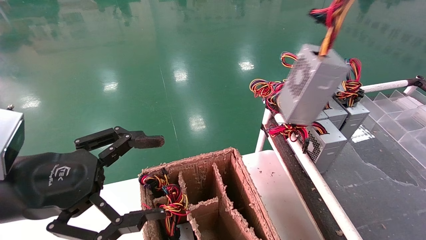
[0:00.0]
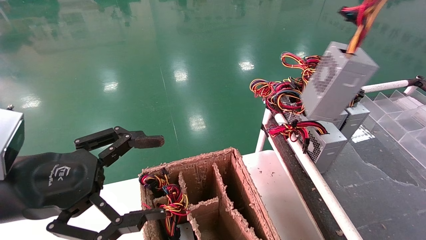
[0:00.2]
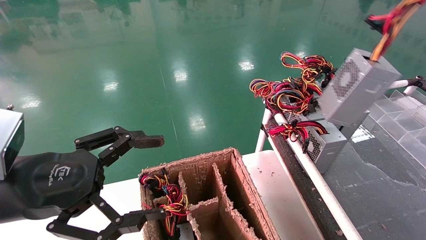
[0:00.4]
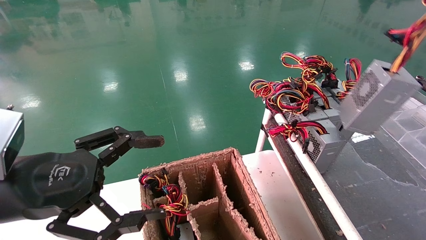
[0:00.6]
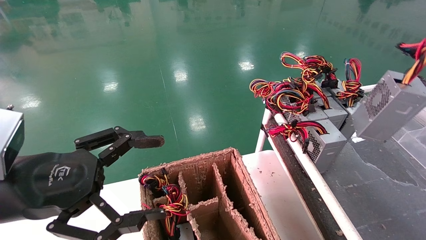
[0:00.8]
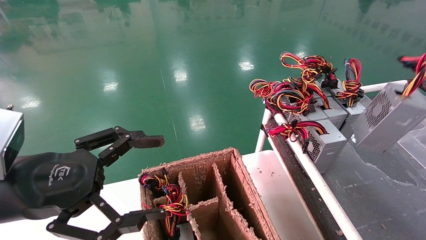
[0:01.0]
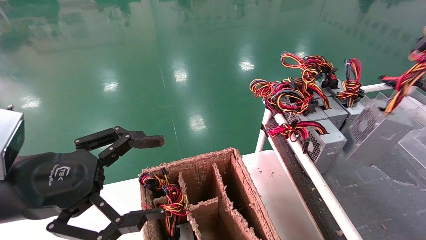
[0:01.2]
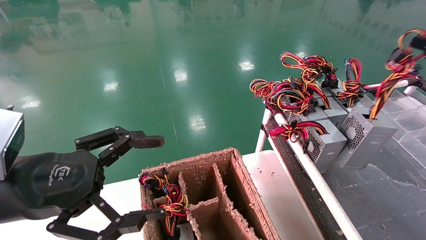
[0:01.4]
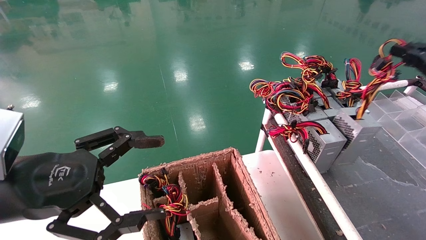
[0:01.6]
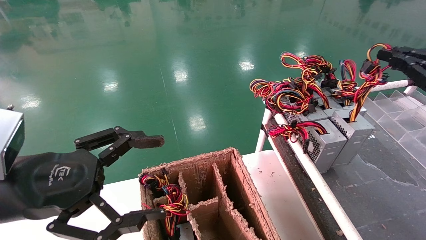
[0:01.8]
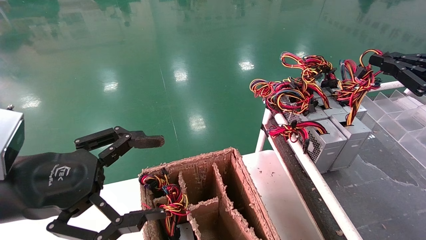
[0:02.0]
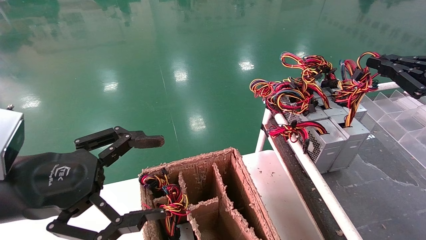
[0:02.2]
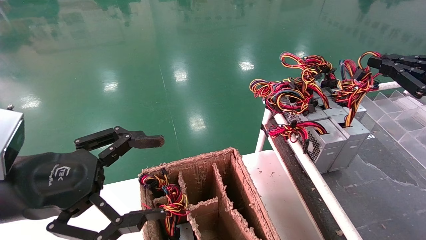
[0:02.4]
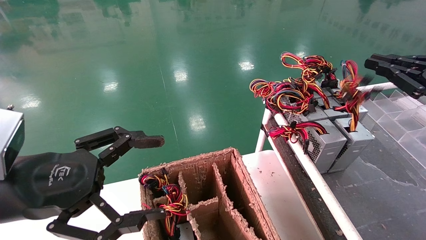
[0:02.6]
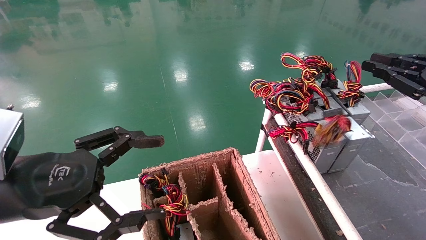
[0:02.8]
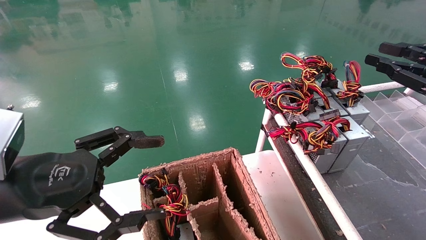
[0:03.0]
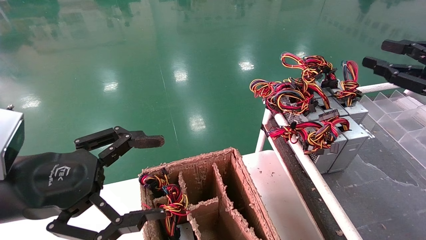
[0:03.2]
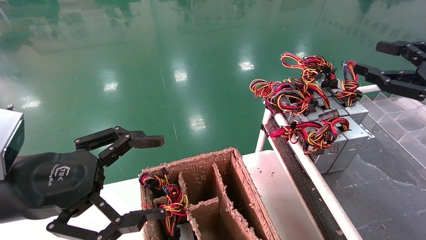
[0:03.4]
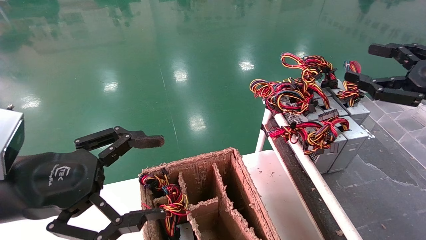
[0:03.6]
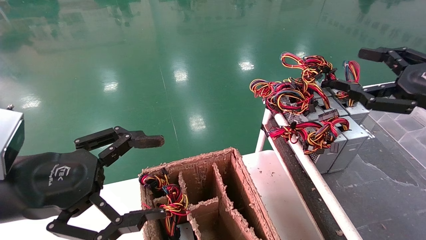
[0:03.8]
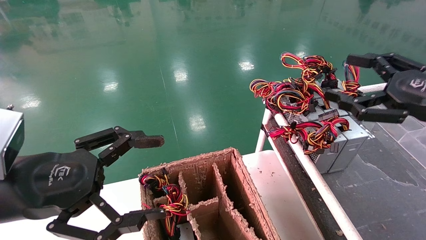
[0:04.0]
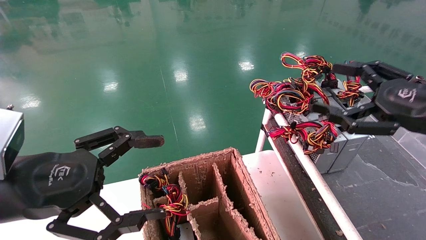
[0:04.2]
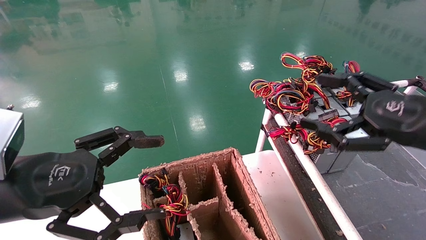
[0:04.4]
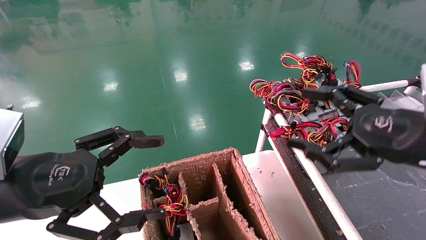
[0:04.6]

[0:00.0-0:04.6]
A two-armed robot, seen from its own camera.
Step, 0:00.0 to 0:02.6: Place the power supply on the operating table.
0:00.0 to 0:01.6: The right gripper is displaced downward and to the right by roughly 15 cm.
0:01.6 to 0:03.0: The grippers stay close to where they were, moving slightly.
0:03.0 to 0:04.6: The right gripper heads to the left, covering about 15 cm, and opens its fingers.
